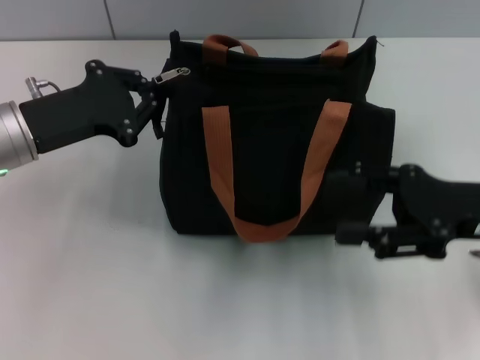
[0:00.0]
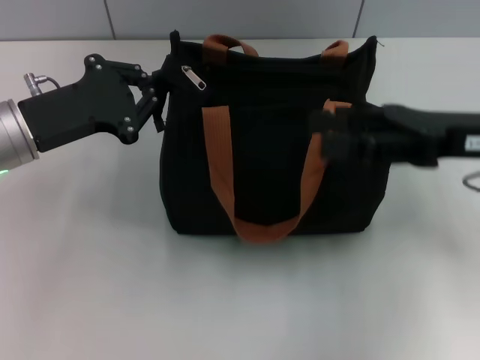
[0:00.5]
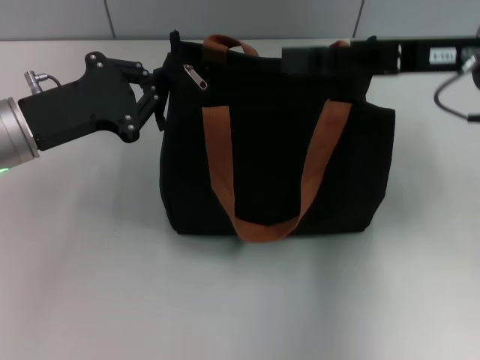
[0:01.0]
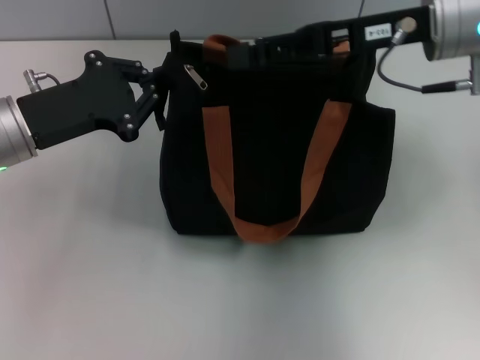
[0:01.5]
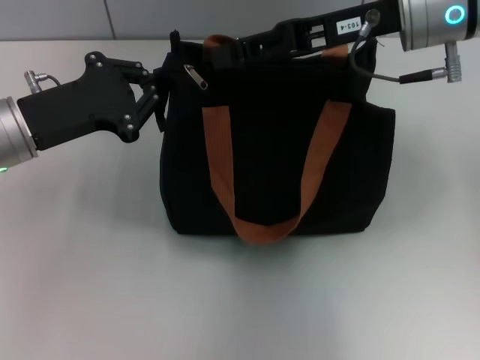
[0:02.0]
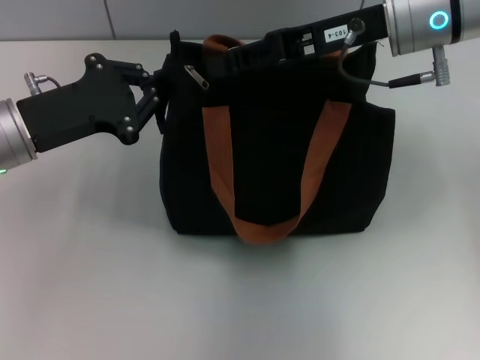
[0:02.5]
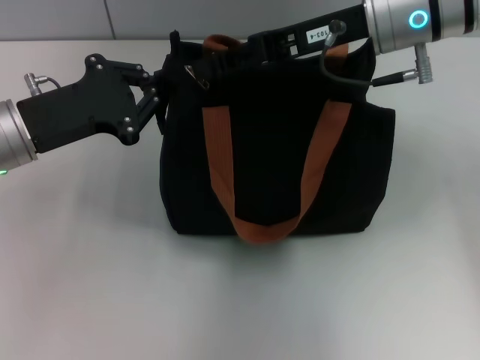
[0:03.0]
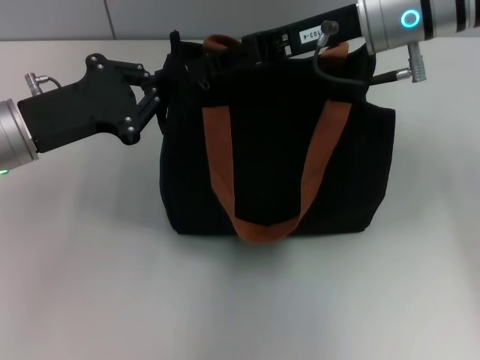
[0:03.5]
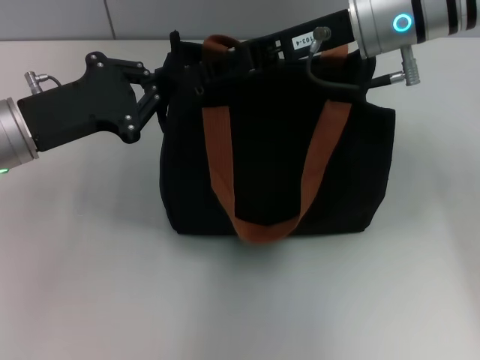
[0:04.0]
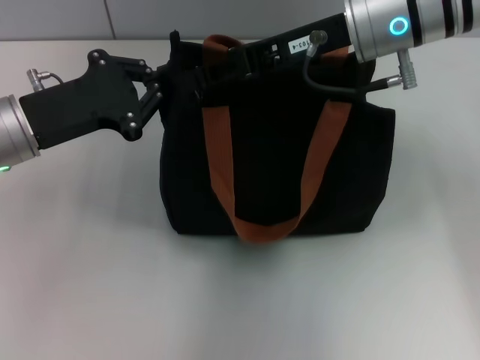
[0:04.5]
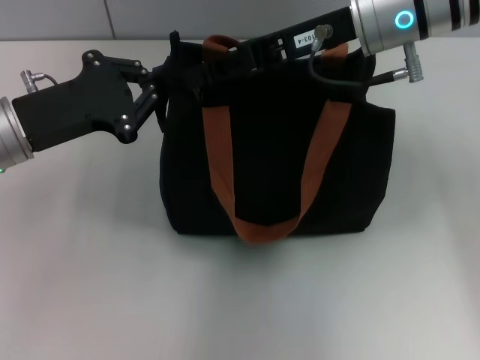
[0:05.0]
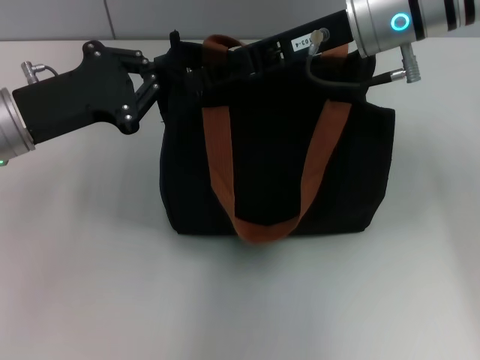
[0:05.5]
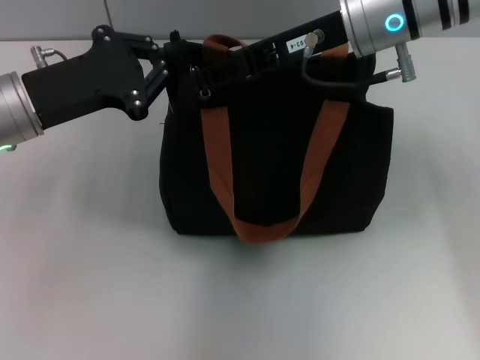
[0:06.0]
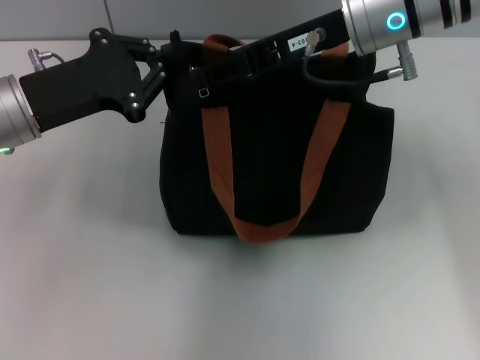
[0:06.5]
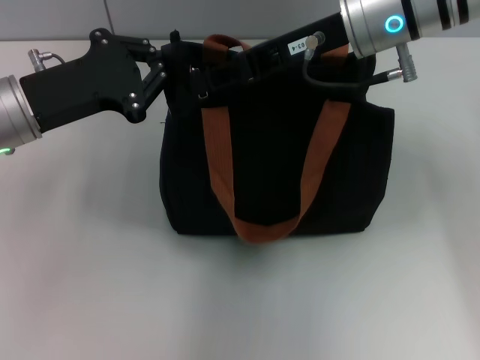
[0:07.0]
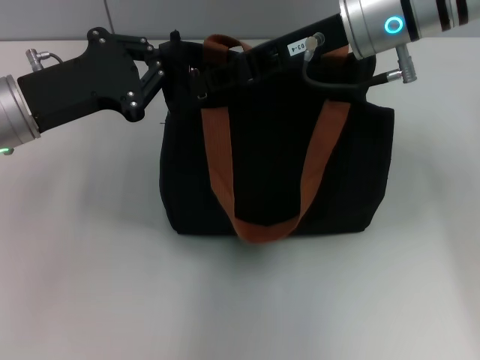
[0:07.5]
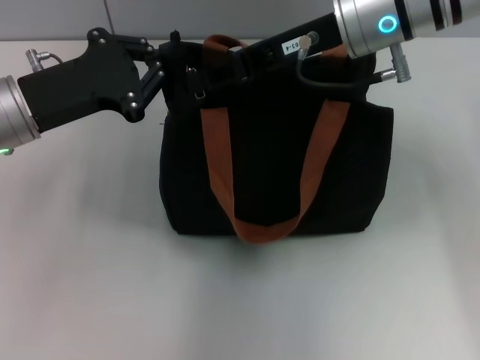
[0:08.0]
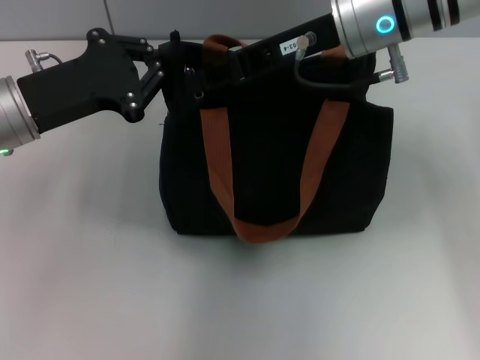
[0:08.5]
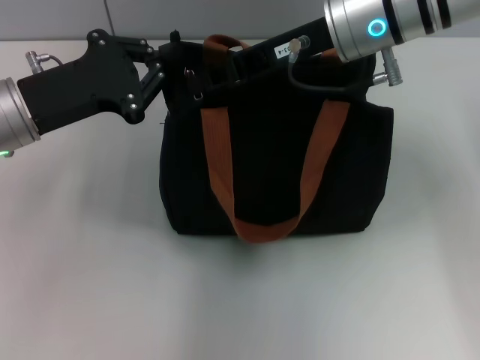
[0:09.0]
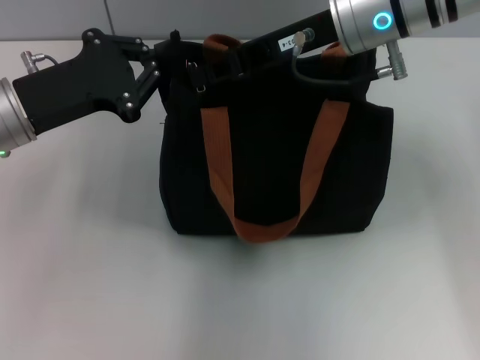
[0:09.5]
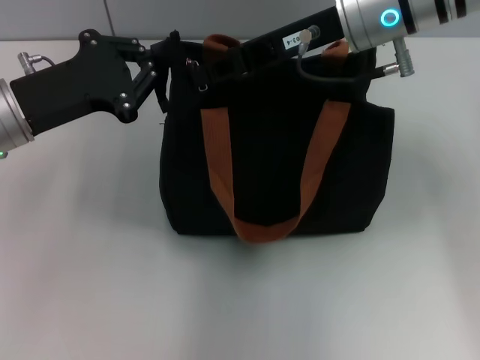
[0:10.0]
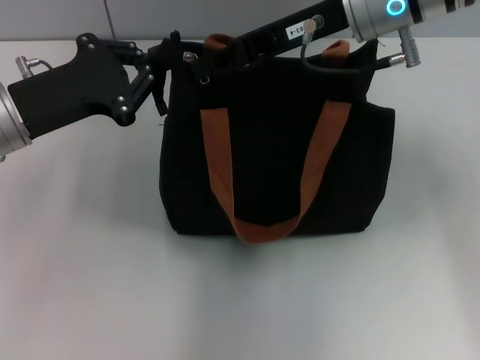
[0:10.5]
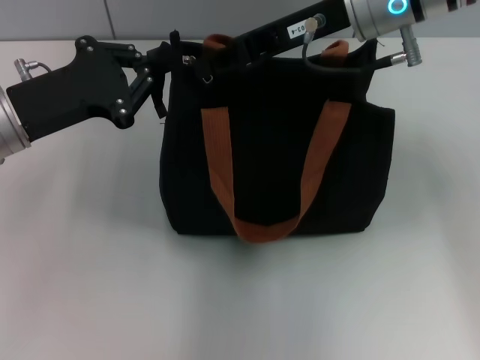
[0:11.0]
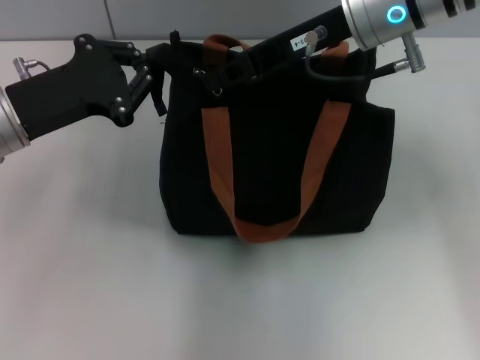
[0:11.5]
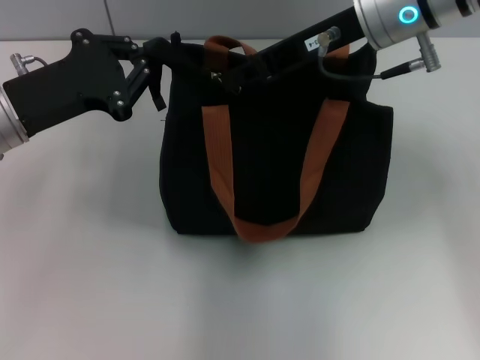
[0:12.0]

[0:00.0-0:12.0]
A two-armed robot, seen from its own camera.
0:00.0 to 0:02.0: The right gripper travels forward, upward and to the left by some 20 cm.
0:02.0 to 0:06.0: The grippers make only small movements.
0:06.0 to 0:10.0: Both grippers stay about where they are.
0:10.0 to 0:12.0: The grippers move only a little.

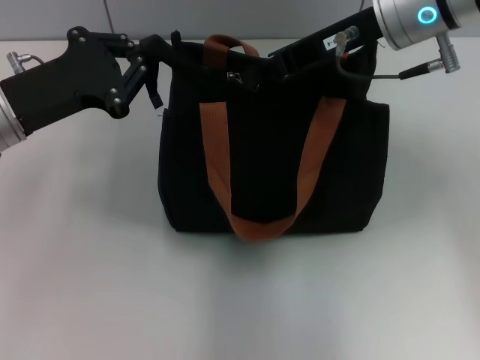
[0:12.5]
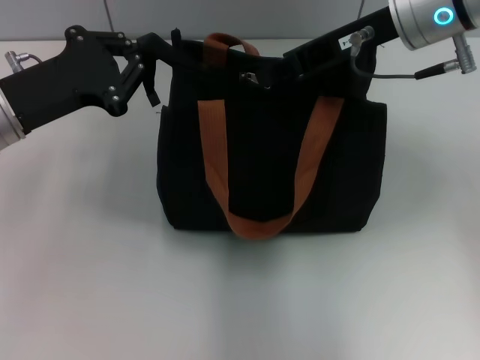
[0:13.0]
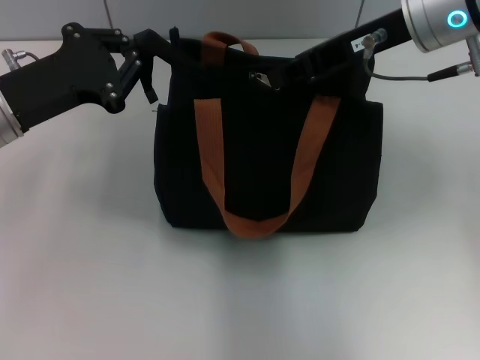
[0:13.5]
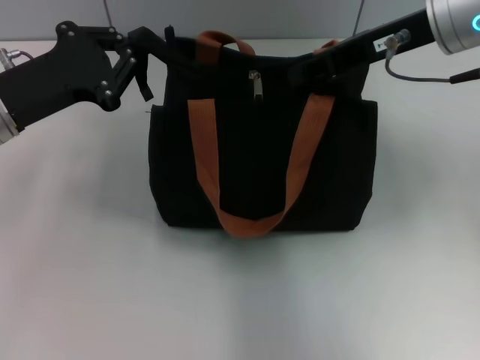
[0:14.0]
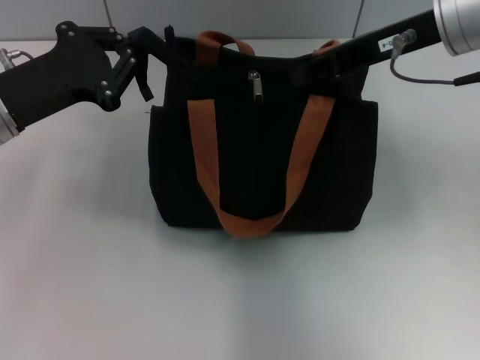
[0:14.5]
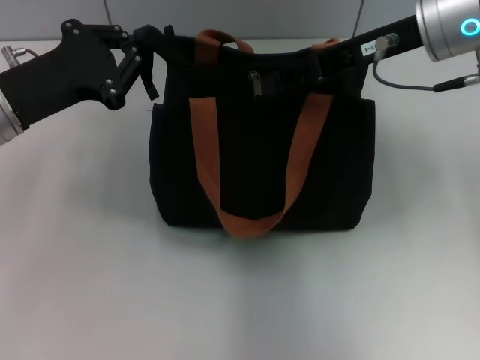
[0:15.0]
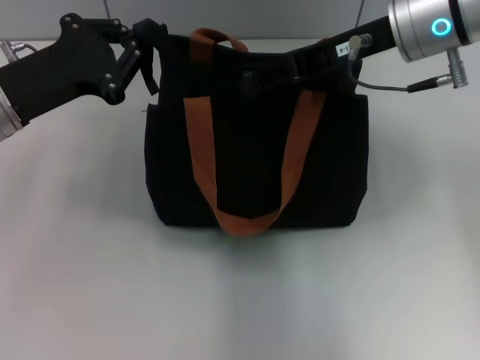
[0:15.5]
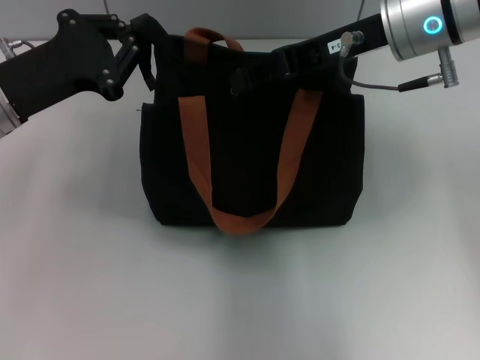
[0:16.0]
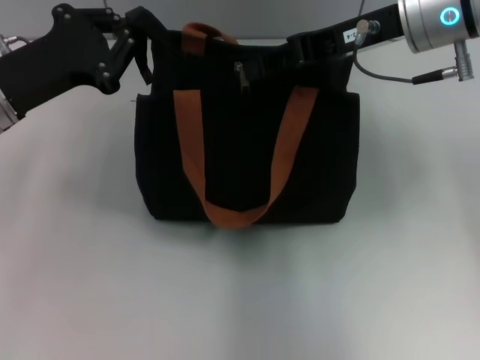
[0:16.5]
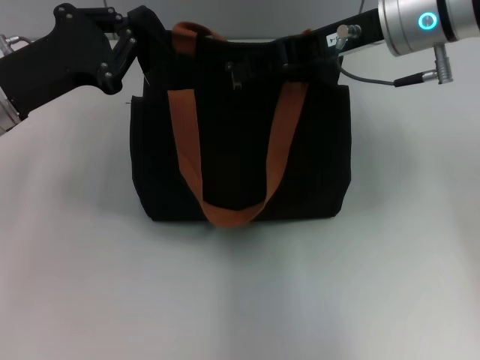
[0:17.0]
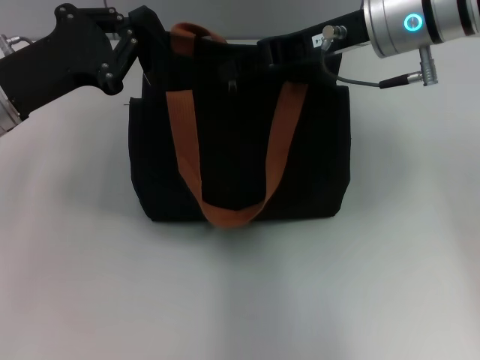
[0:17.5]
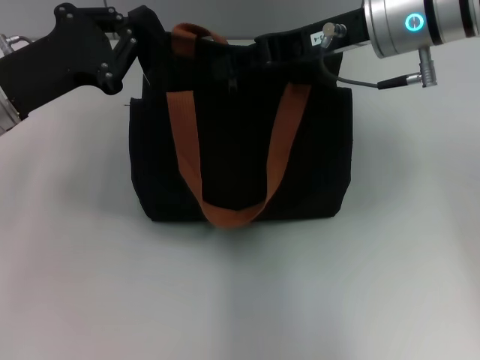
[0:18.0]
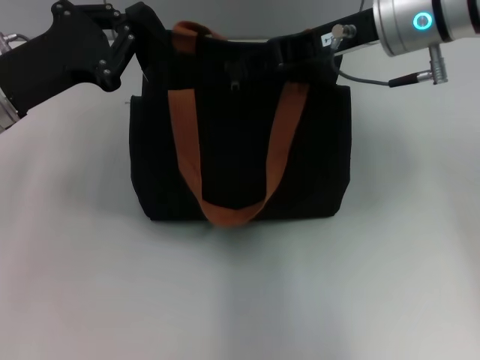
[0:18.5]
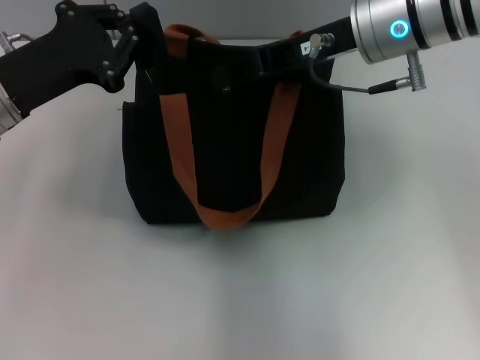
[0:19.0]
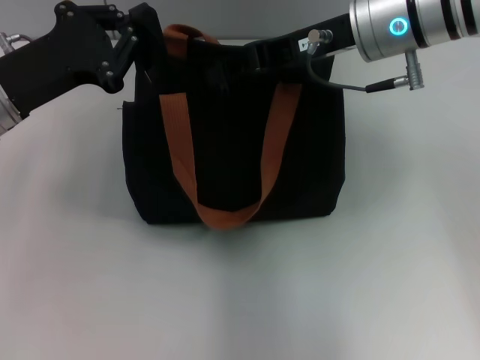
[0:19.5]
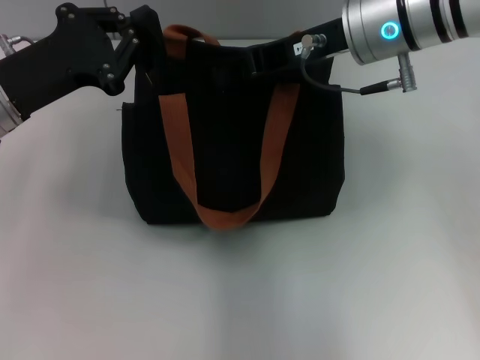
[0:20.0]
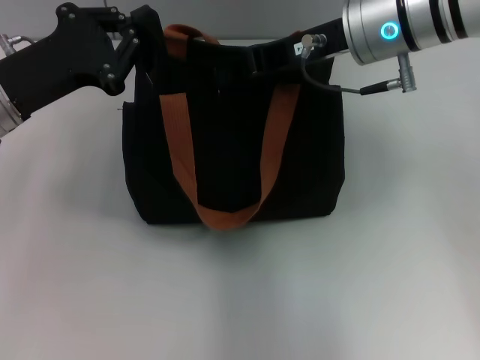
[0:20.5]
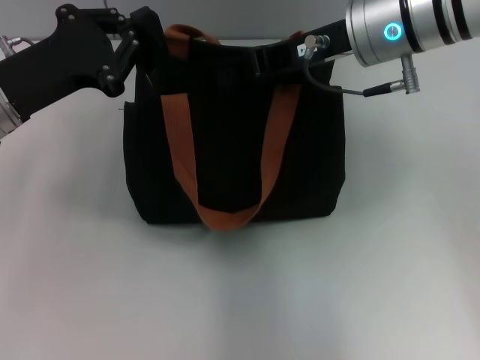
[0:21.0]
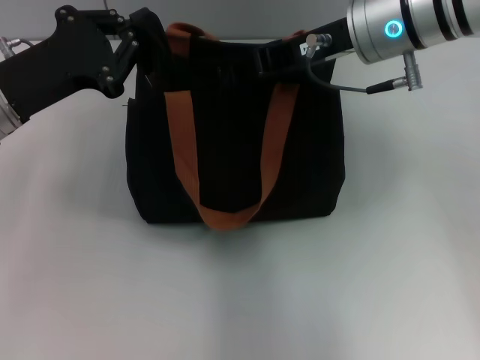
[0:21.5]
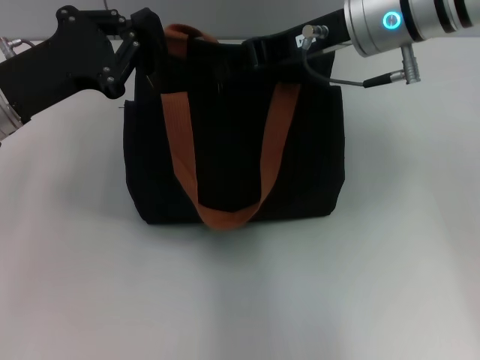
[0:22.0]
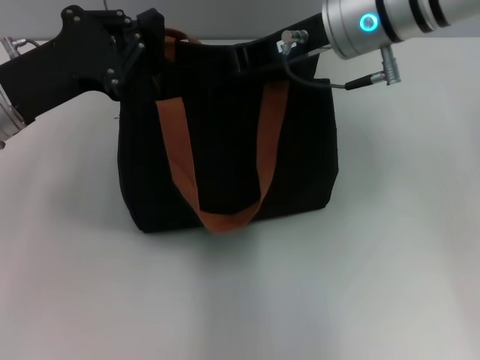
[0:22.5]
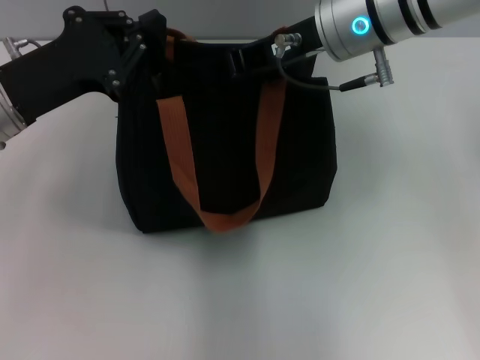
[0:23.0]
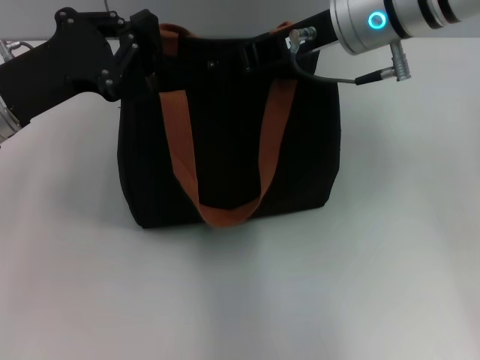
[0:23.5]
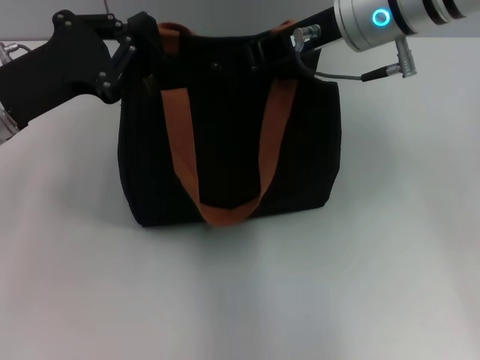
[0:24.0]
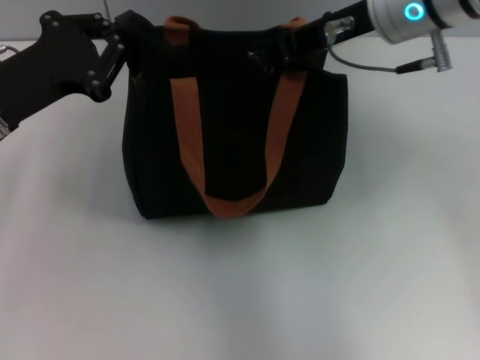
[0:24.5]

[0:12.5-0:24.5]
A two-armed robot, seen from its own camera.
0:12.5 to 0:14.5: There are only small adjustments of the grippers.
0:14.5 to 0:16.5: The right gripper opens.
0:16.5 to 0:22.5: The grippers stay close to where they were, moving slightly.
0:22.5 to 0:24.5: There are only small adjustments of the grippers.

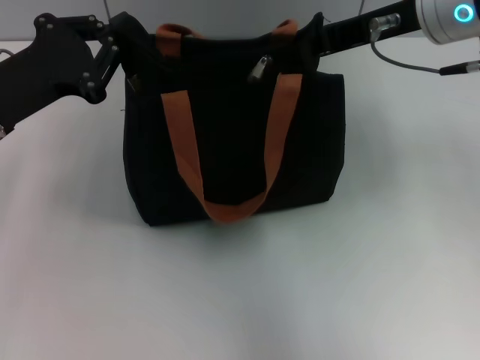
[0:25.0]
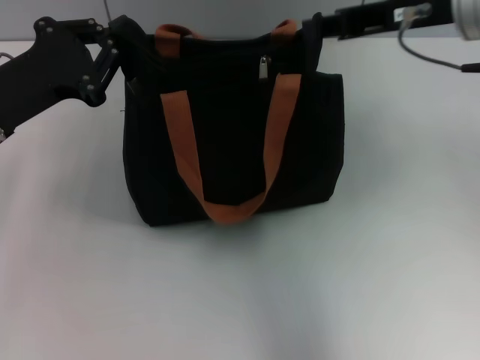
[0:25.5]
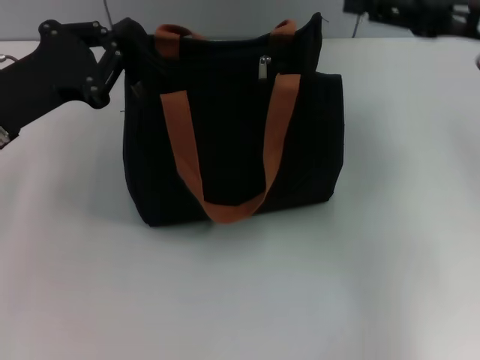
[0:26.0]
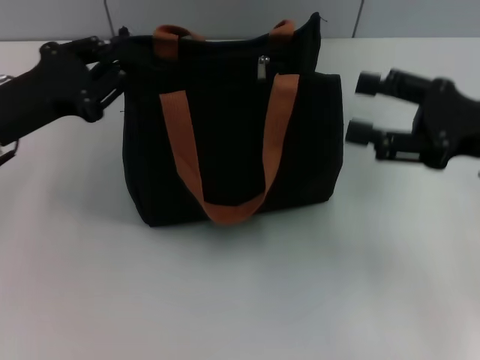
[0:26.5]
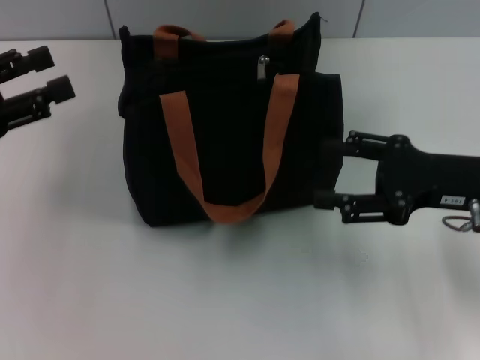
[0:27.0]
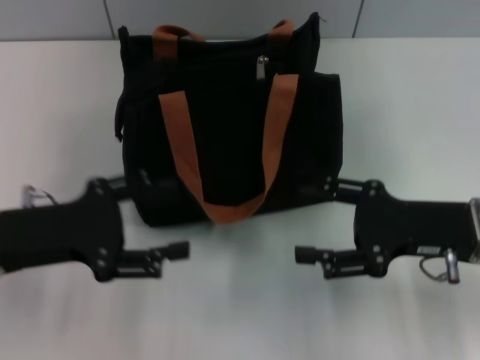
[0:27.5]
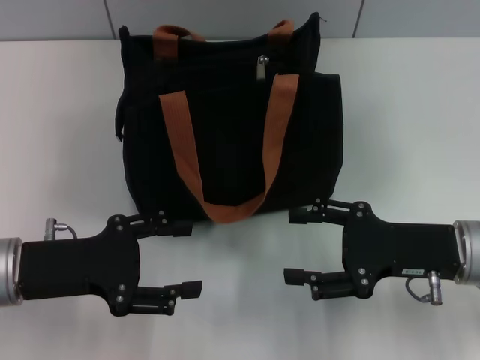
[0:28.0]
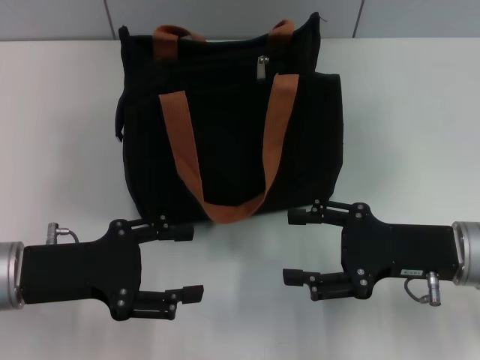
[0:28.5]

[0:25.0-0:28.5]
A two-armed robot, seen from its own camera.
0:25.0 to 0:27.0: The right gripper is displaced downward, to the right and backward by about 20 cm, and opens up; the left gripper heads to the left, covering some 5 cm, and opens.
0:27.0 to 0:28.5: The left gripper heads to the right and downward, covering about 10 cm, and opens, while the right gripper moves downward, approximately 5 cm.
